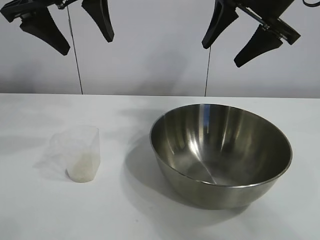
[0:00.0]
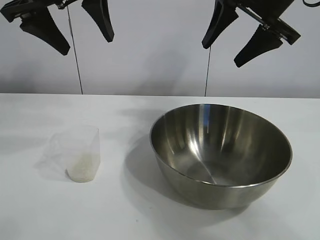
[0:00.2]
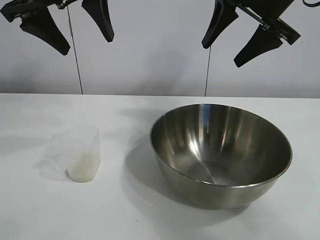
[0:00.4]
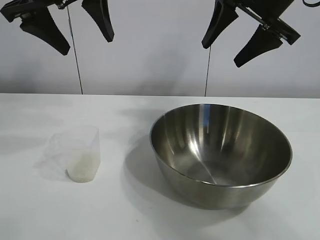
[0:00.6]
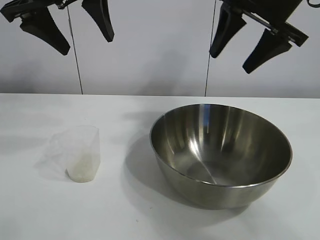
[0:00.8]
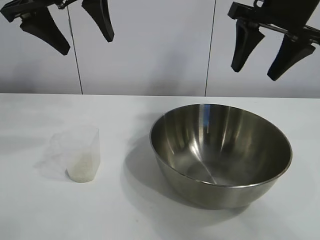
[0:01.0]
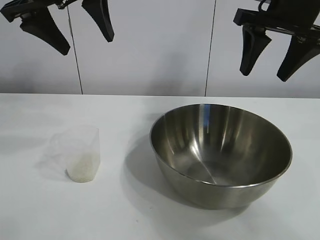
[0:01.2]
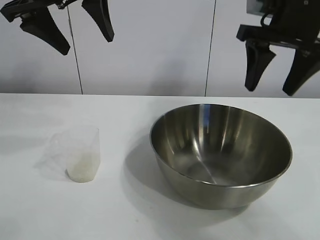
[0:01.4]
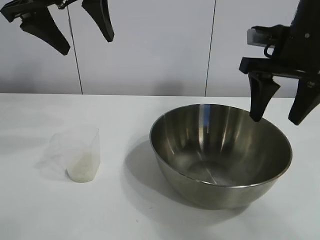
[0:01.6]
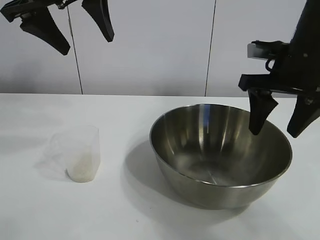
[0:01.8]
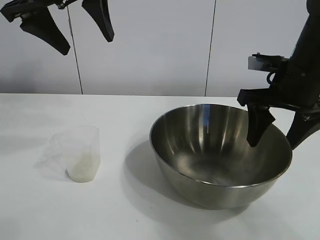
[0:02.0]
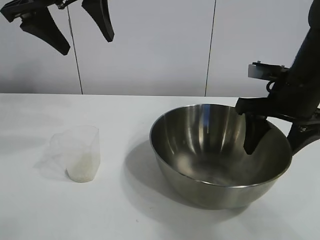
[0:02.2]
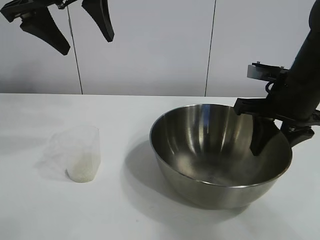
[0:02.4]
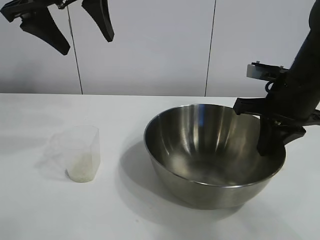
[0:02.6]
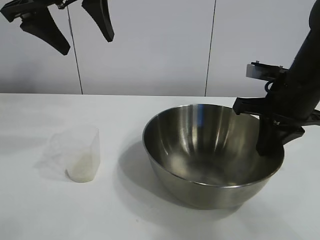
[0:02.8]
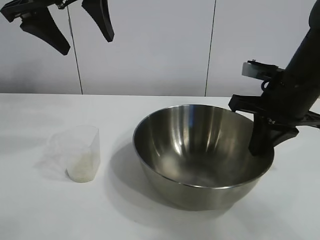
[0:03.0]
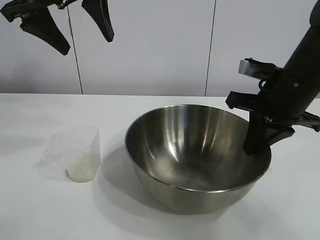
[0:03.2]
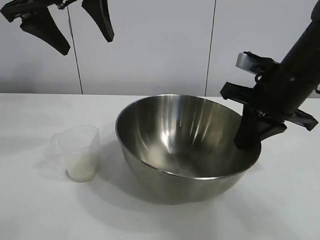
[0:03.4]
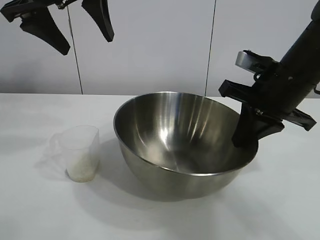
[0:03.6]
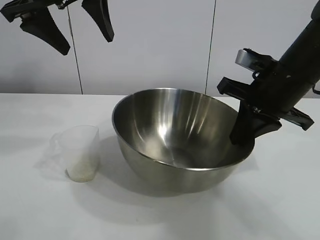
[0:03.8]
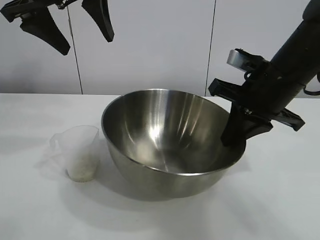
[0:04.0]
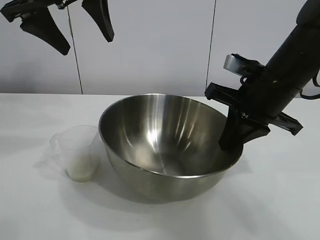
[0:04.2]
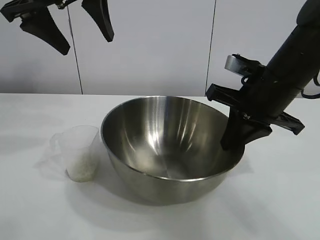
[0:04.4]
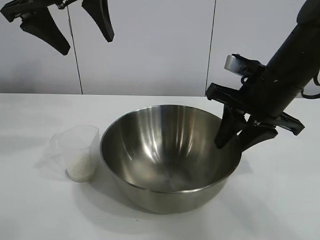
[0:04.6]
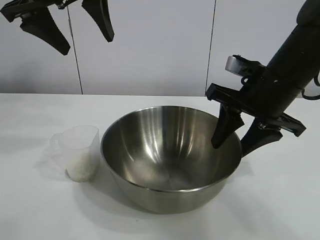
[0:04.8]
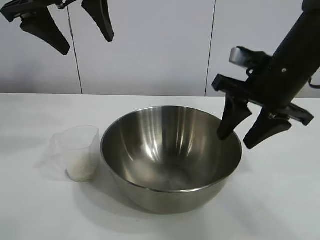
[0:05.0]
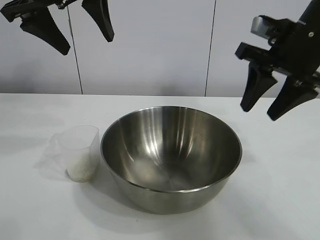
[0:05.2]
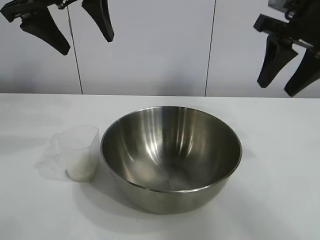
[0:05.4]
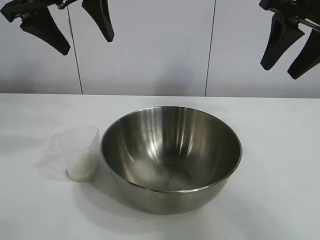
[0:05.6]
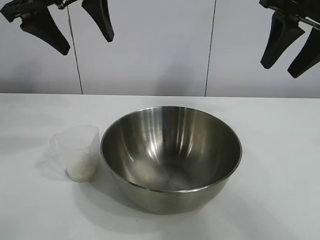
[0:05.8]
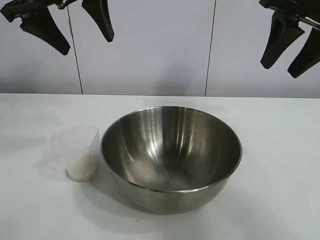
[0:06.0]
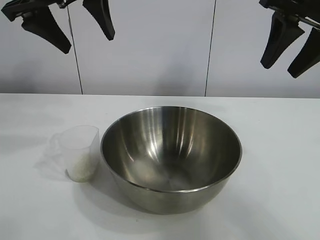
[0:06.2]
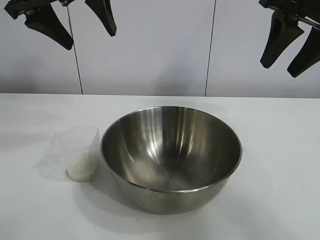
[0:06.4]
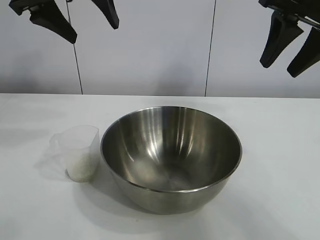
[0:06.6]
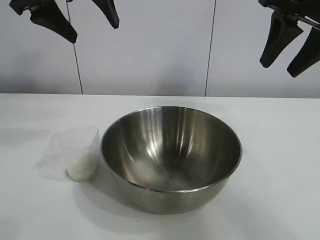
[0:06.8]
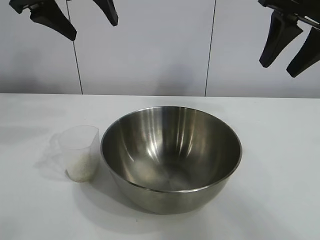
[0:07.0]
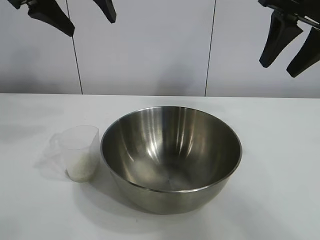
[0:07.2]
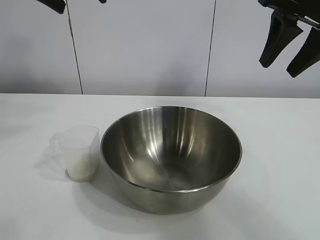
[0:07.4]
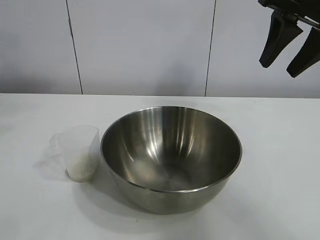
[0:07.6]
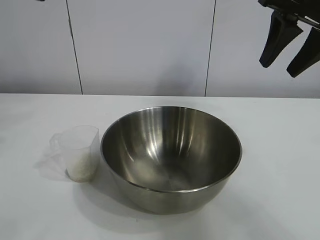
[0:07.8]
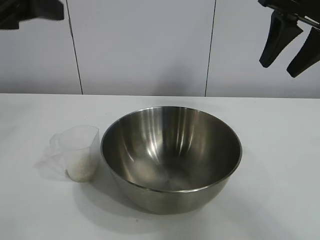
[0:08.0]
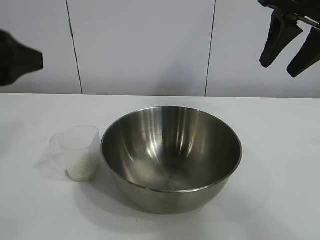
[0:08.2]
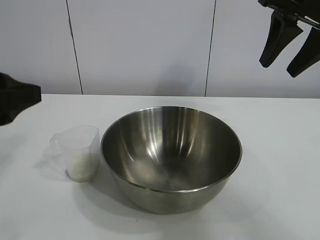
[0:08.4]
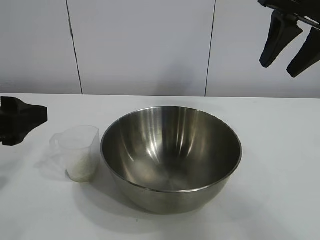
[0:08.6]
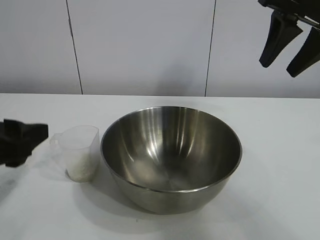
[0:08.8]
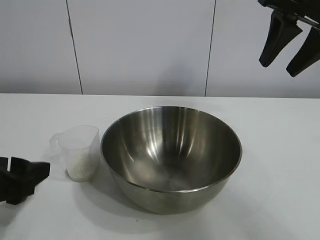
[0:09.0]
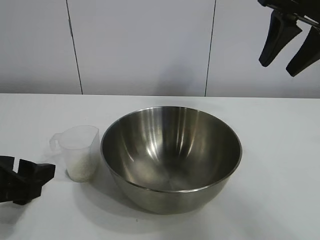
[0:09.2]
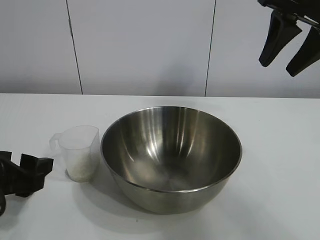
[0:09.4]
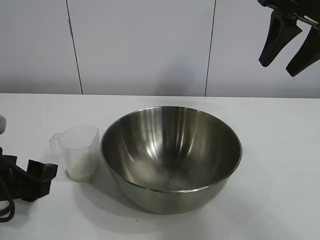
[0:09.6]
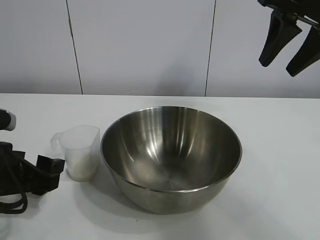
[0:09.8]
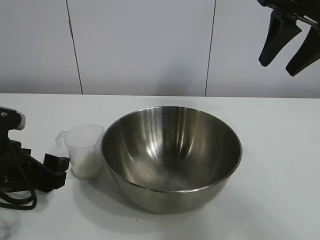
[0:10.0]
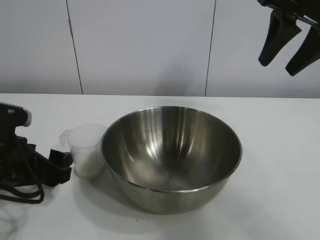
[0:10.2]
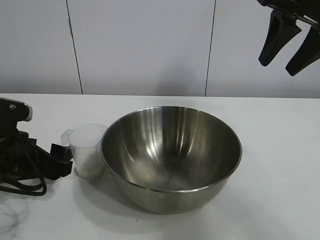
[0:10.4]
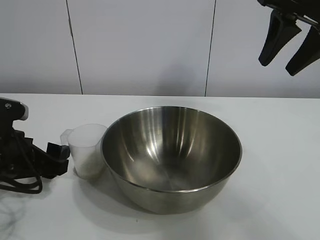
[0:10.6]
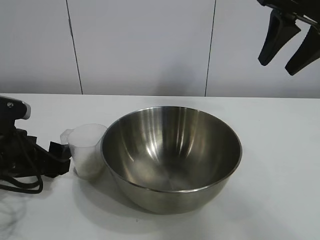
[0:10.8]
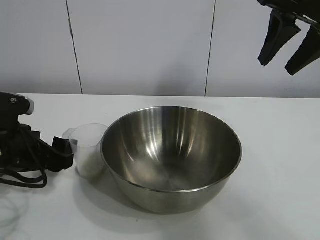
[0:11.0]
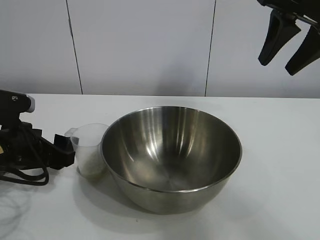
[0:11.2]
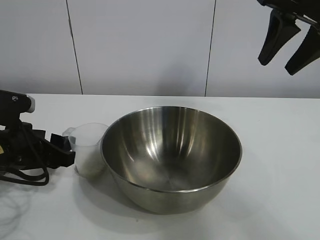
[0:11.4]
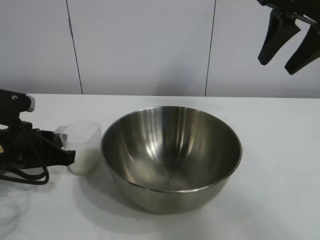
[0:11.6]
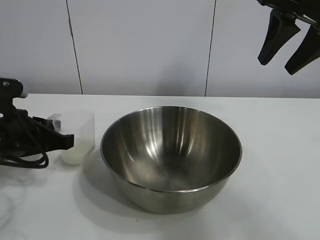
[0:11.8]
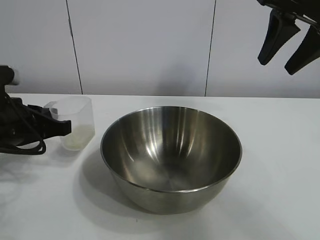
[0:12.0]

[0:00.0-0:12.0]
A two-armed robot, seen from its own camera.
Task of the whole recording: the right gripper grasp the rice container and place it in the center of the table, the left gripper grasp the rice scoop and pour the rice into the rice container.
Step, 0:00.8 to 0:04.8: Move the bowl in the center of view with right gripper.
Step, 0:05.2 to 0:11.6: Grasp the cup with rice in it with left gripper.

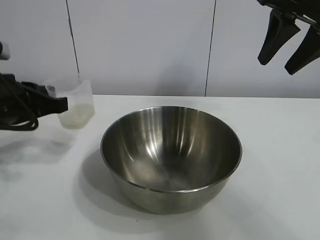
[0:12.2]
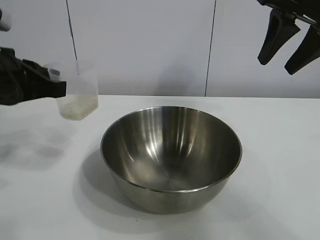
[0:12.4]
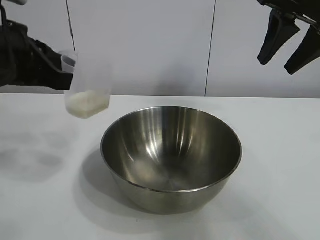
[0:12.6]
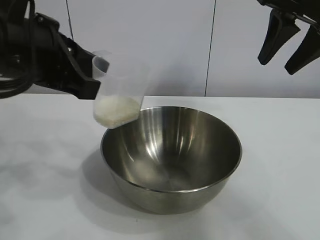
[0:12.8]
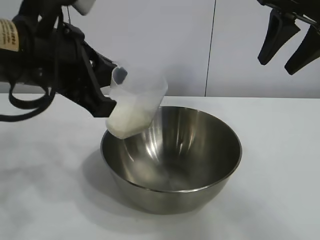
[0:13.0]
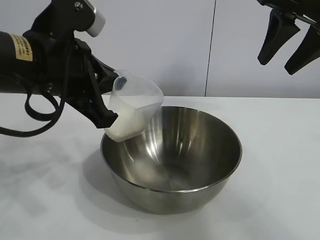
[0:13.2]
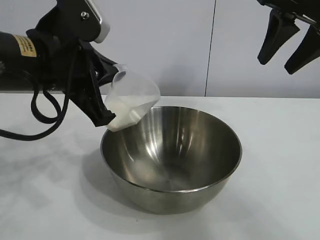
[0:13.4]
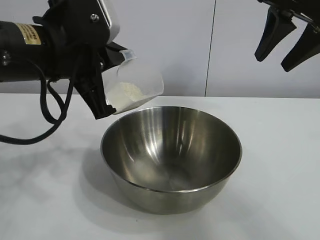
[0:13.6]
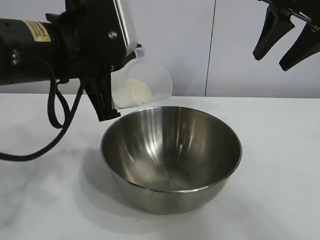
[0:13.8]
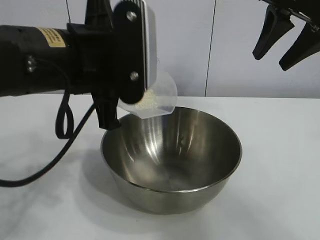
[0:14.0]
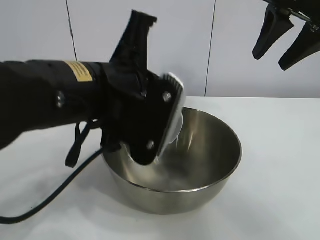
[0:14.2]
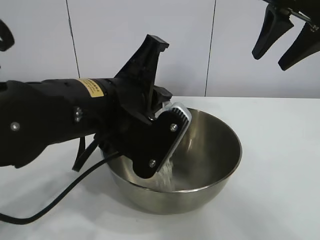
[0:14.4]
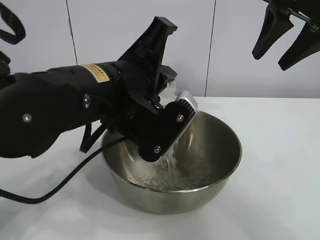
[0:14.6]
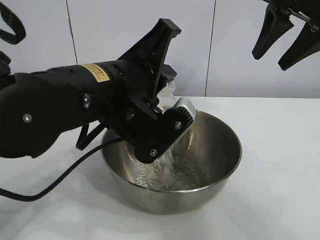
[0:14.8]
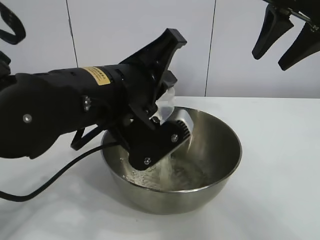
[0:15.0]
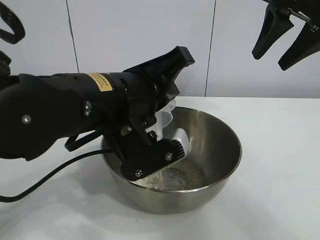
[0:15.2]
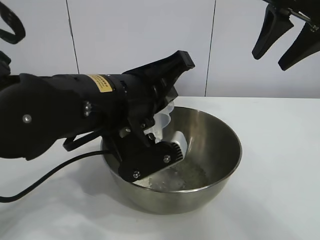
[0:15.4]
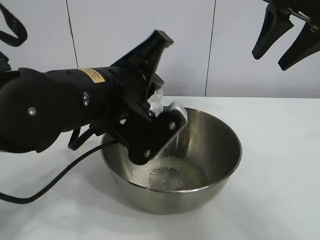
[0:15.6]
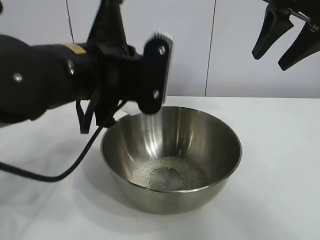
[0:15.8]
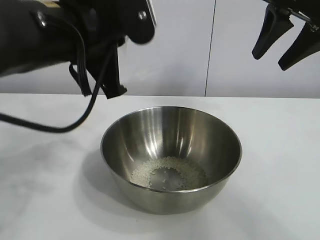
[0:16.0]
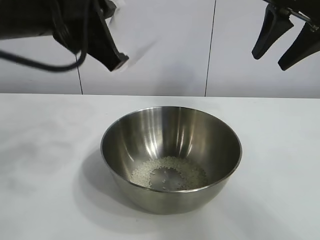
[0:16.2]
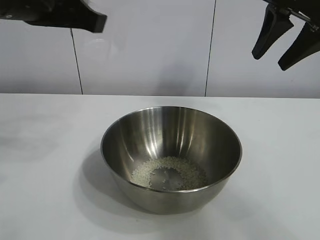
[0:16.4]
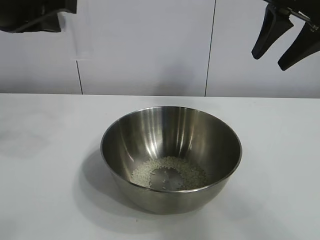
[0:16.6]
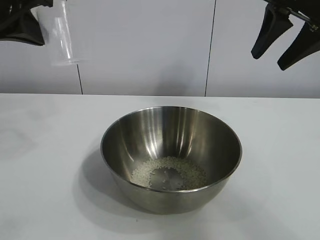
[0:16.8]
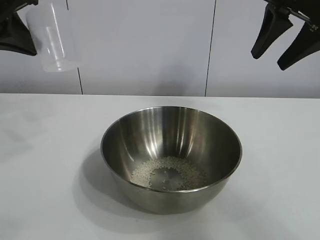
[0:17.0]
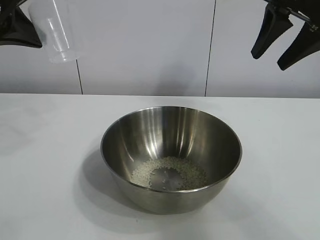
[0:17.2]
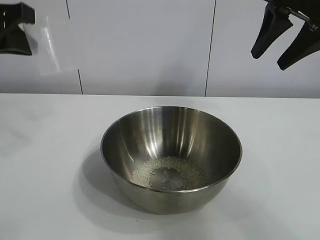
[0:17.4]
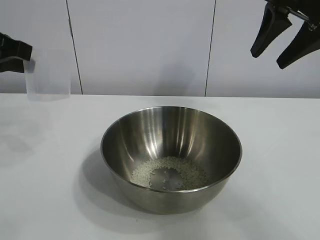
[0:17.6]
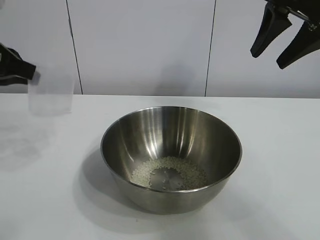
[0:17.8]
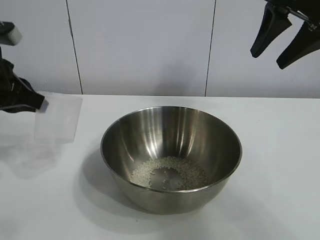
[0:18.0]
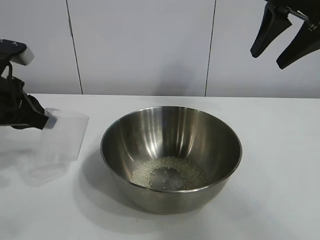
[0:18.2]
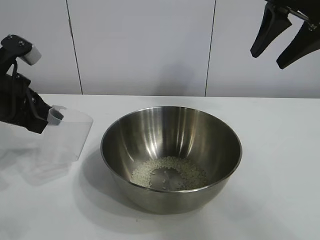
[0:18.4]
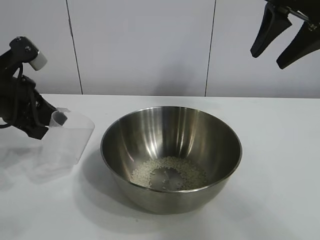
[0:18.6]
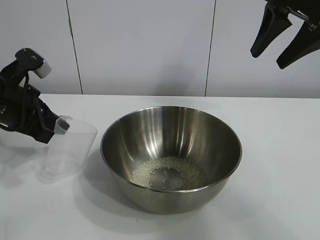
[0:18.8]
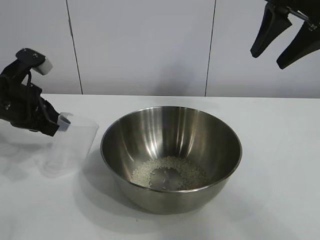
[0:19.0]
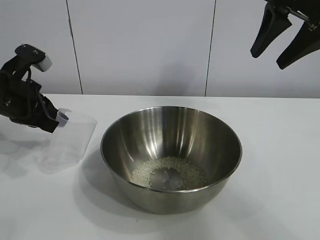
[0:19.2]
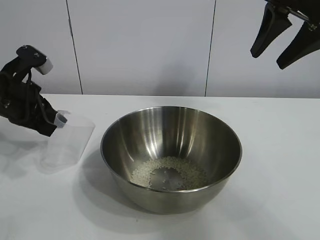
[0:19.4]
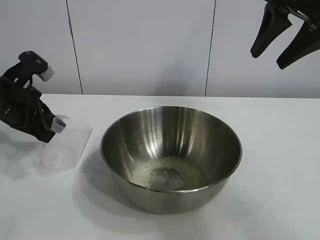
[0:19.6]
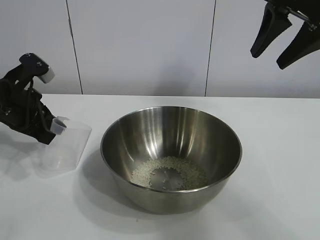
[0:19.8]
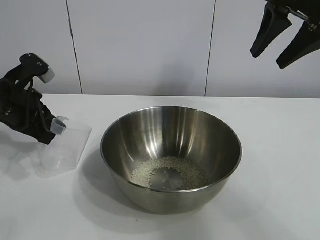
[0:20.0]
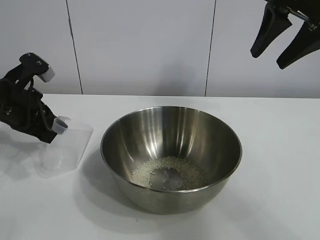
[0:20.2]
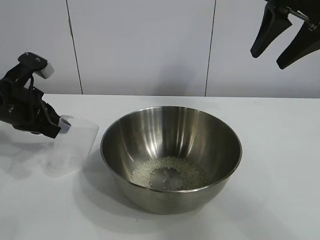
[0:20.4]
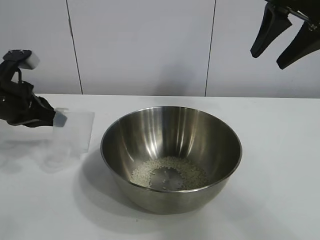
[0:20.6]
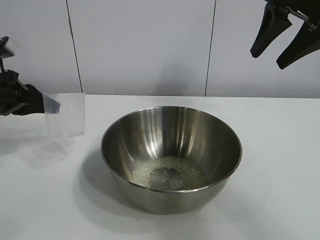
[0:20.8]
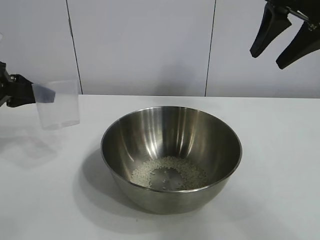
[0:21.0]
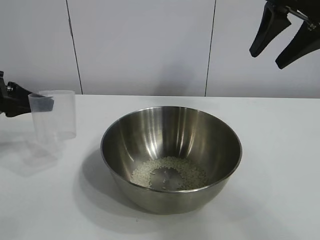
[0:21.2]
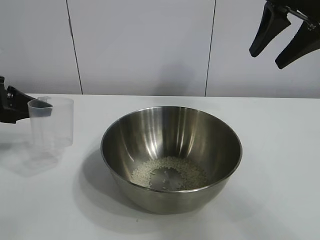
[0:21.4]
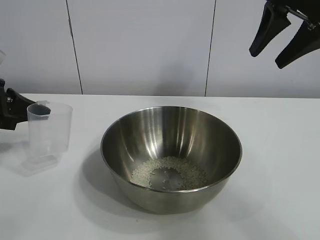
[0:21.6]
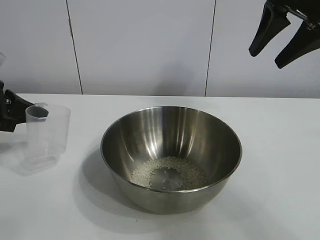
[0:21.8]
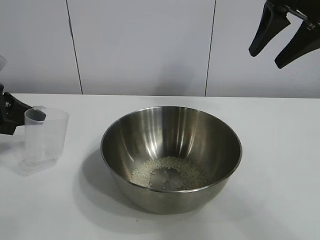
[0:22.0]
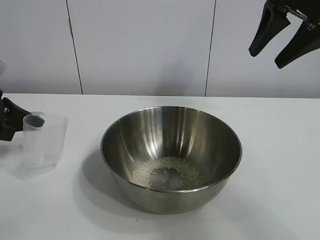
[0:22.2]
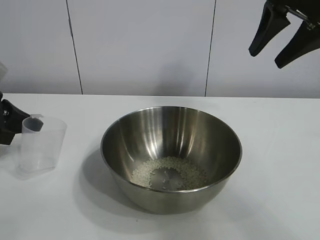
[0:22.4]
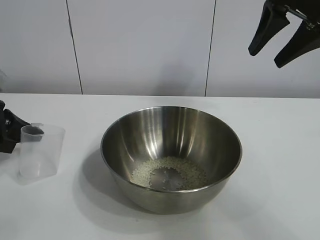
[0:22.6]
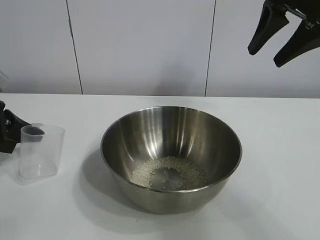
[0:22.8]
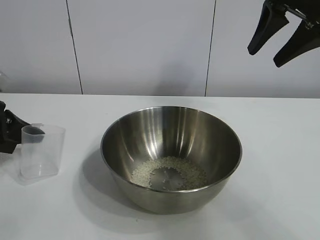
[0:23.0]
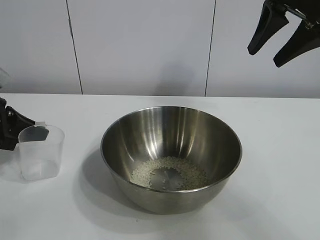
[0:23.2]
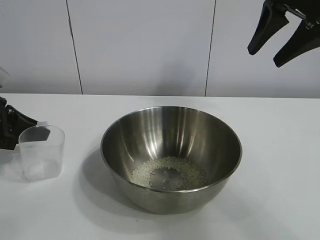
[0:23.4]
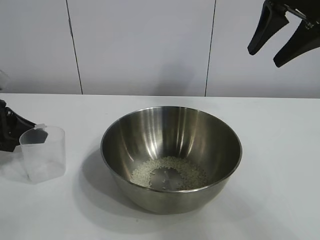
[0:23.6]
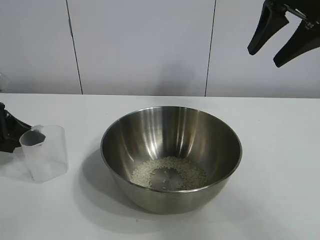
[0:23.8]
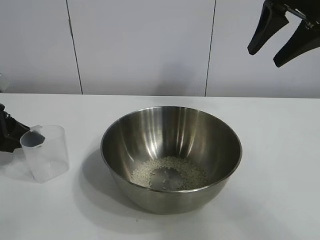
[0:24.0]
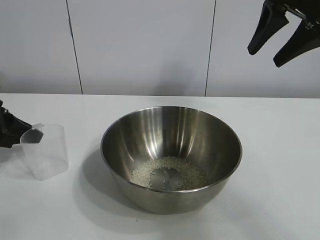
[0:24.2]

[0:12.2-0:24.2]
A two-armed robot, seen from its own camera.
Task of the whole recording: the right gripper grasp the rice container and place it in the center of the table, the left gripper grasp the rice scoop and pour the rice into the rice container.
Step, 0:12.2 to 0:15.4: Pour the rice from the cup into the bowl with the left gripper.
Step, 0:15.6 to 0:24.0: Place the cup on the table with the left gripper.
